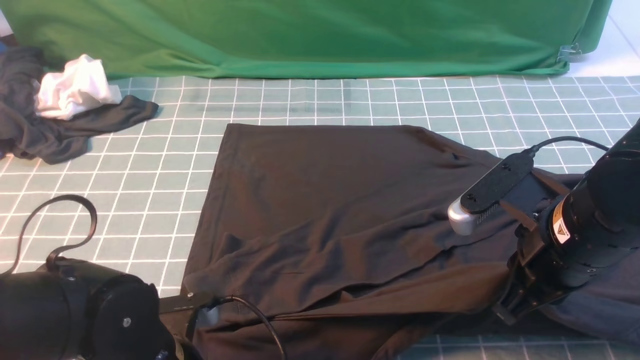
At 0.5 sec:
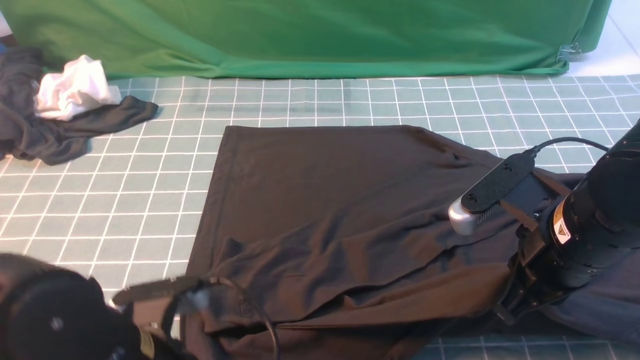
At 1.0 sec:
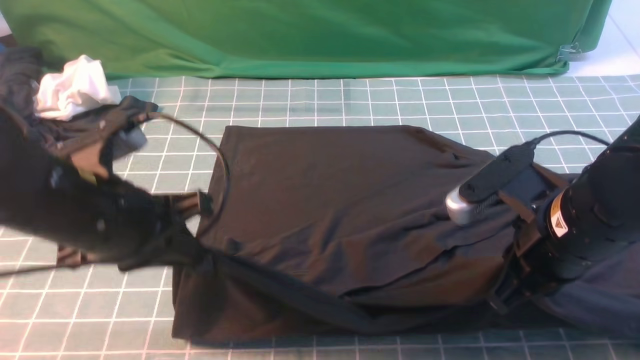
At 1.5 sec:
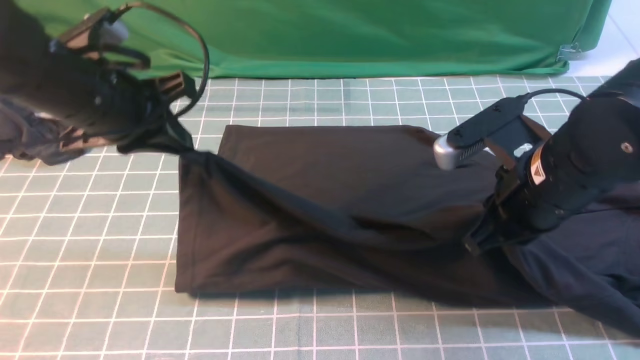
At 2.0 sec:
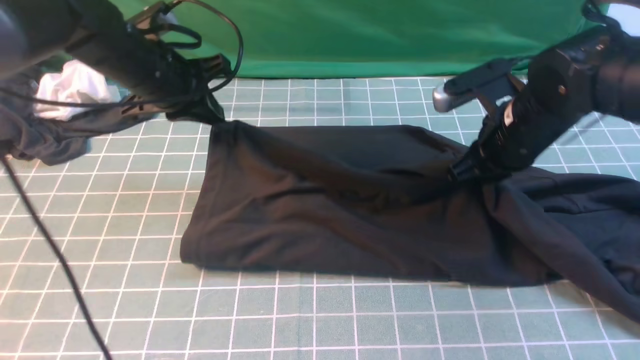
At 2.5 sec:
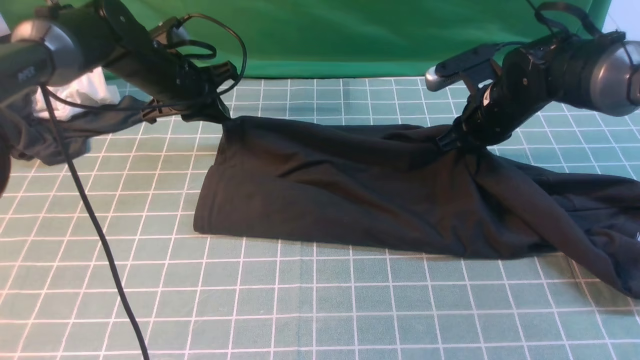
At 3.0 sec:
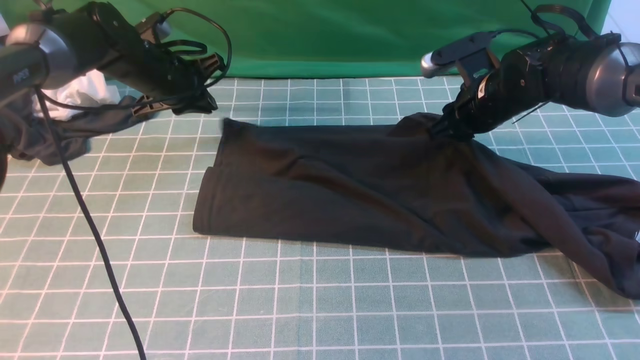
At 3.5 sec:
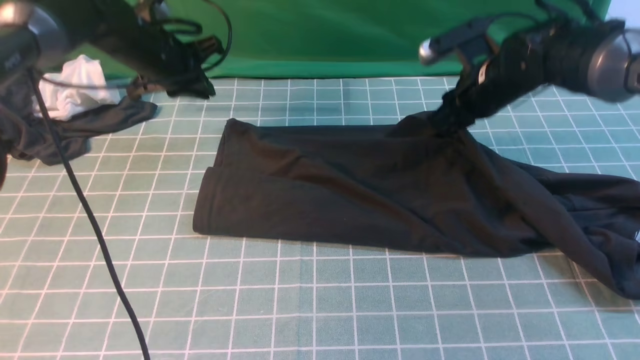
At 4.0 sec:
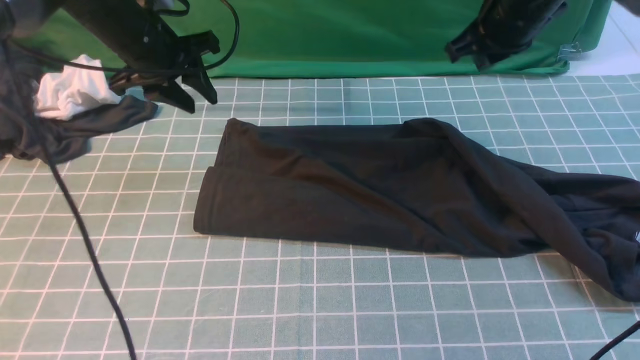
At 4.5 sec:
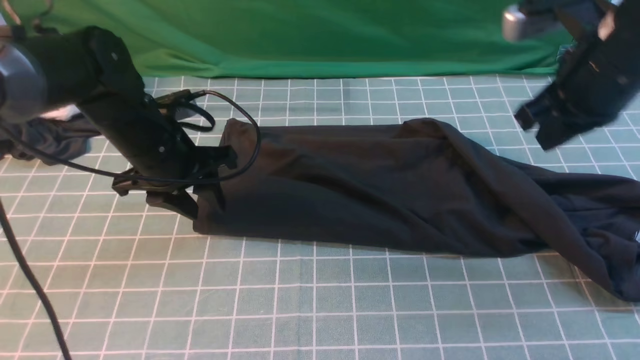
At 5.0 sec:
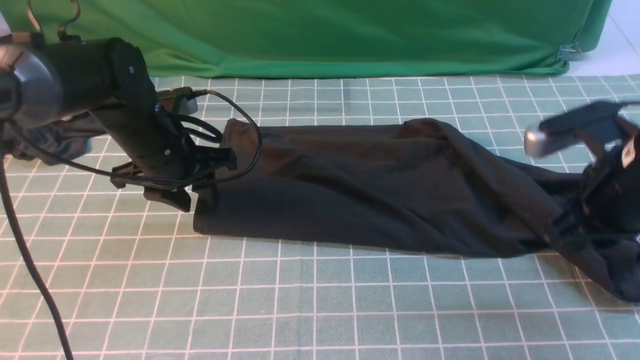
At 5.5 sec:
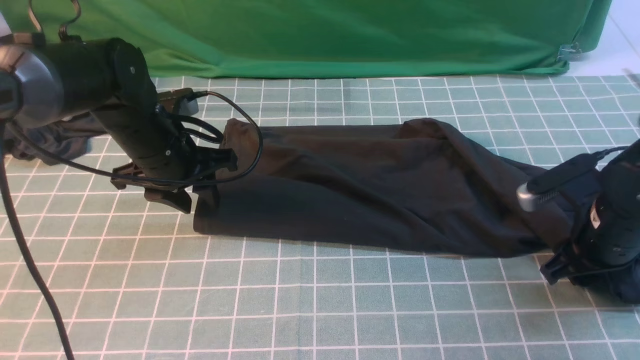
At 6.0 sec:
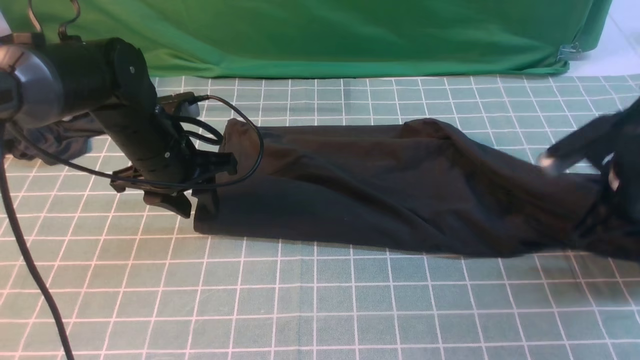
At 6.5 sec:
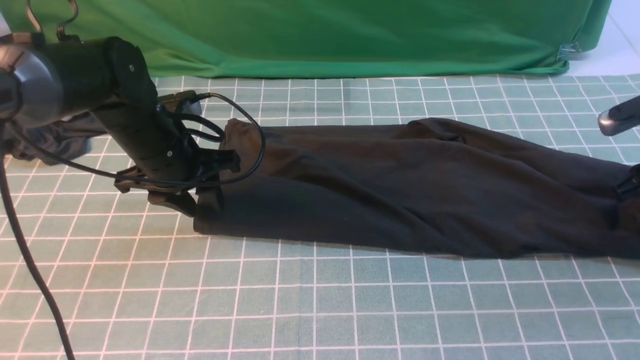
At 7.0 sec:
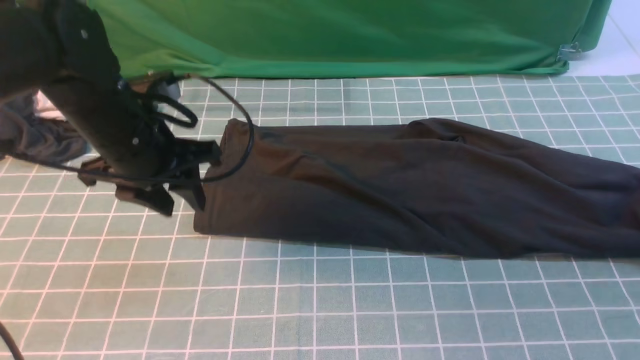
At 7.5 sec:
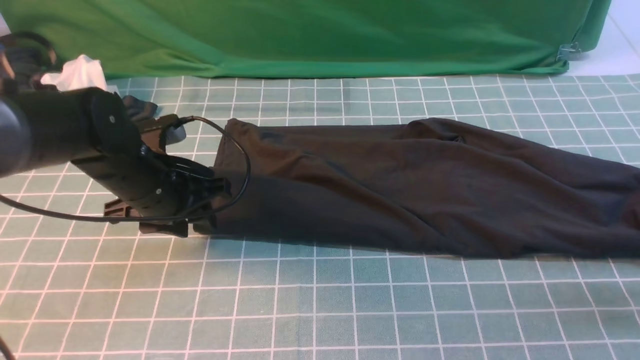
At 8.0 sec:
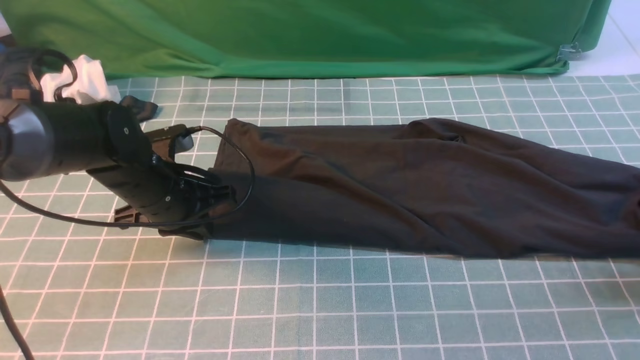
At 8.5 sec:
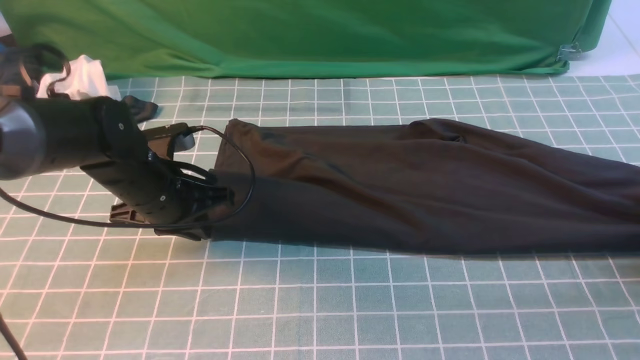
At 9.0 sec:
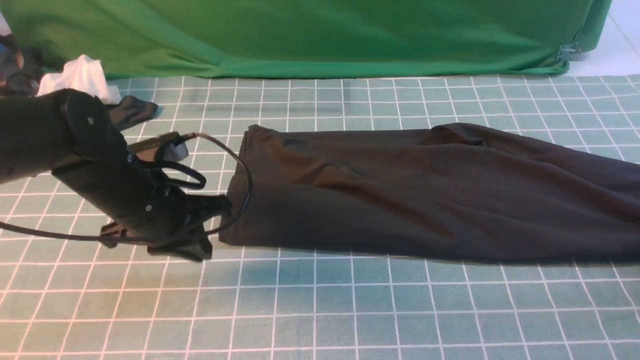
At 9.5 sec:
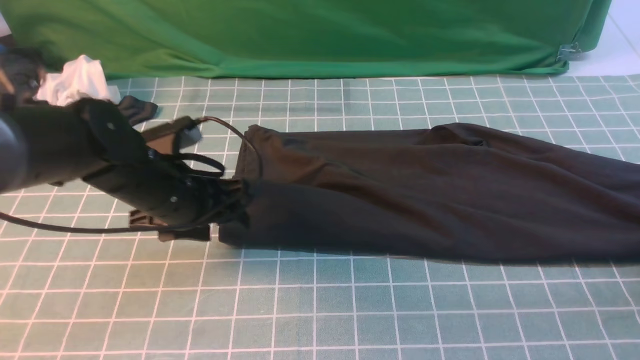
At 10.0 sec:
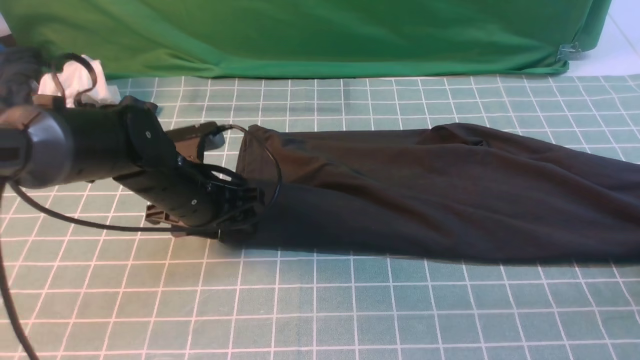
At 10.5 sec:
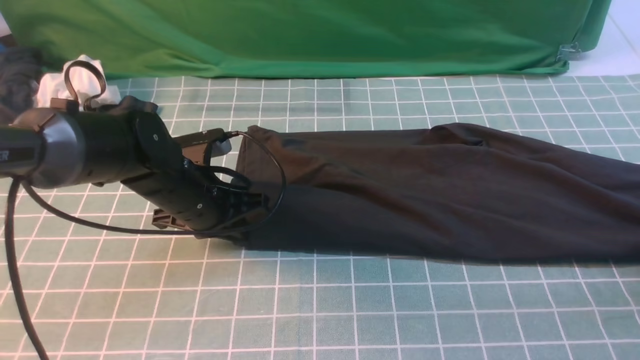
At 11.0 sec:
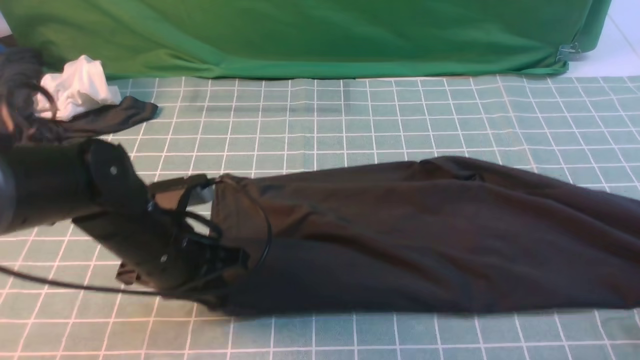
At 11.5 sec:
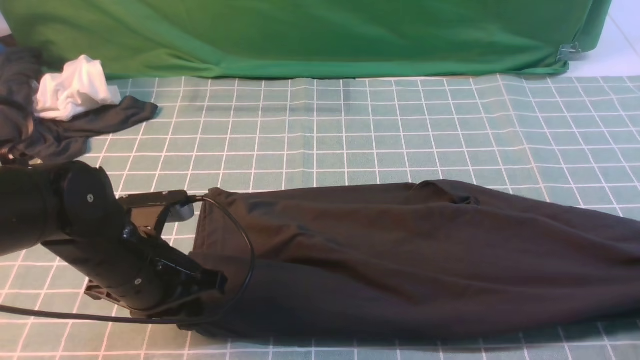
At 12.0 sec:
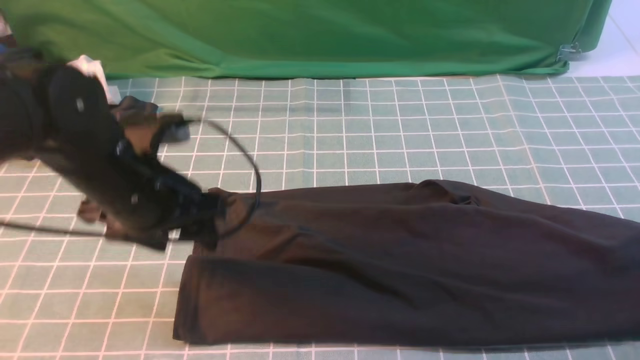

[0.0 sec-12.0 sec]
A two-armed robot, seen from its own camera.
Step, 0.0 sec to 3.5 sec: use both arms to drag the lower edge of the fabric forward and fold it over the upper edge.
0.0 sec to 2.0 sec: The right gripper shifts some 15 cm forward; the left gripper moves forward, some 30 cm.
2.0 sec to 4.0 sec: The left gripper opens its fingers. The right gripper travels upward and forward by approximately 10 cm.
4.0 sec to 6.0 sec: The left gripper goes roughly 10 cm backward and downward, while the right gripper travels backward, downward and to the right by approximately 20 cm, and opens, then closes once more.
6.0 sec to 8.0 sec: The right gripper is displaced to the right by approximately 10 cm, goes upward and returns, about 10 cm each way, and opens up, while the left gripper closes.
8.0 sec to 10.0 sec: The left gripper opens up; the right gripper heads to the right, covering some 5 cm, and closes, then opens again.
10.0 sec to 12.0 sec: The left gripper goes about 10 cm upward and backward, and closes, then opens again; the right gripper moves backward, roughly 5 cm, and opens up.

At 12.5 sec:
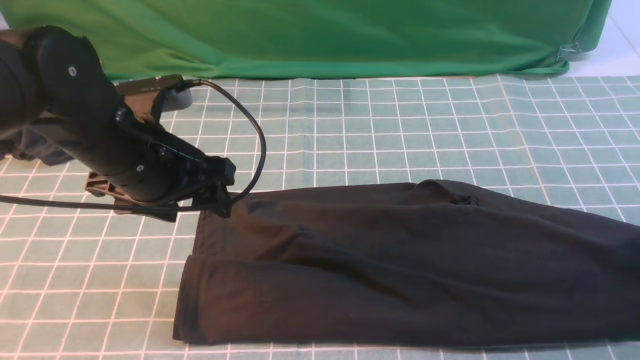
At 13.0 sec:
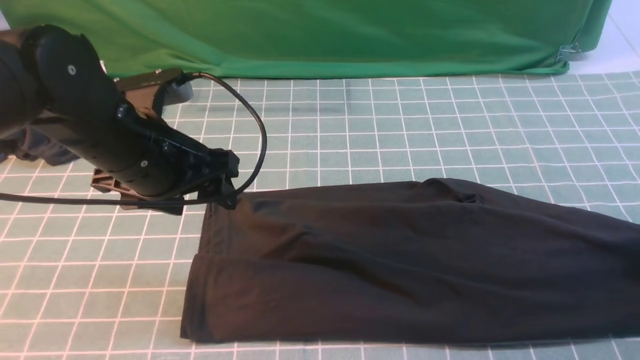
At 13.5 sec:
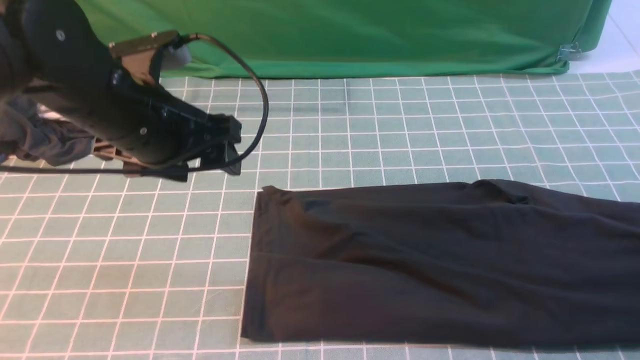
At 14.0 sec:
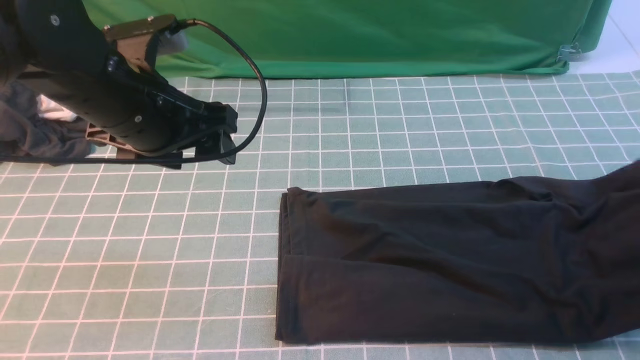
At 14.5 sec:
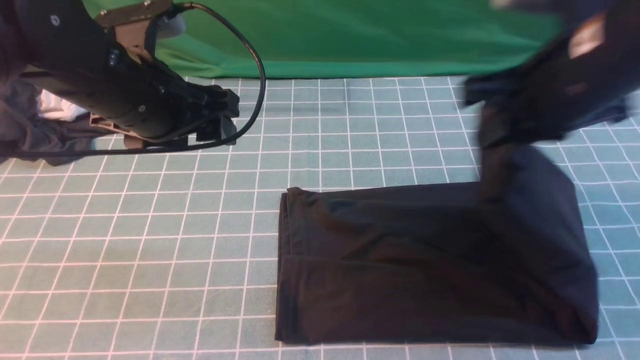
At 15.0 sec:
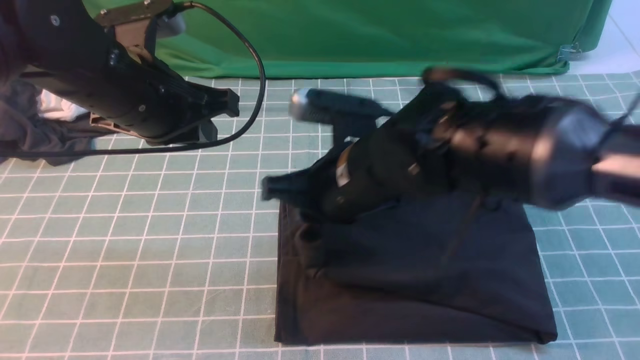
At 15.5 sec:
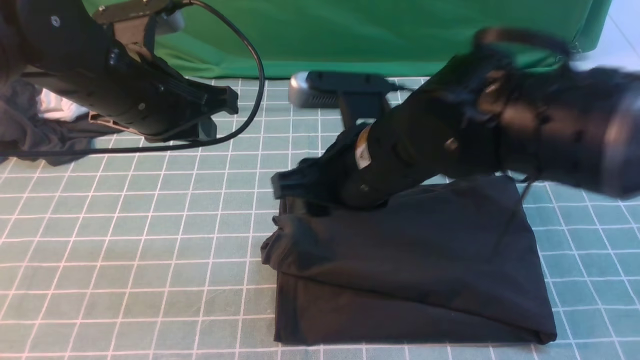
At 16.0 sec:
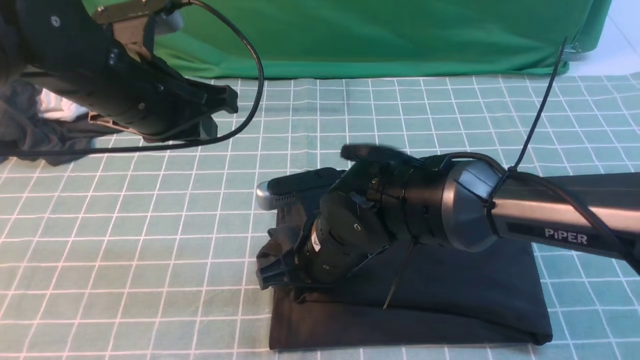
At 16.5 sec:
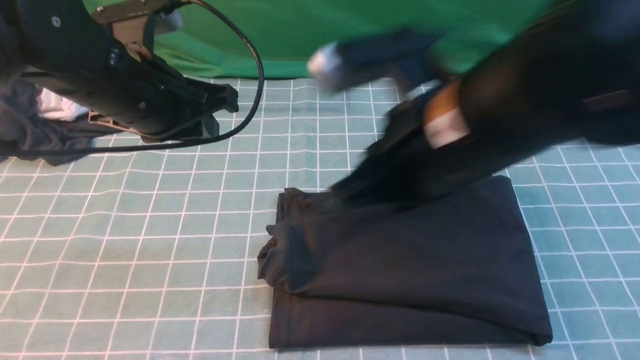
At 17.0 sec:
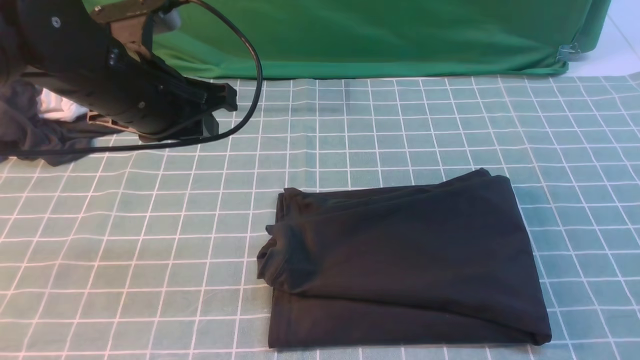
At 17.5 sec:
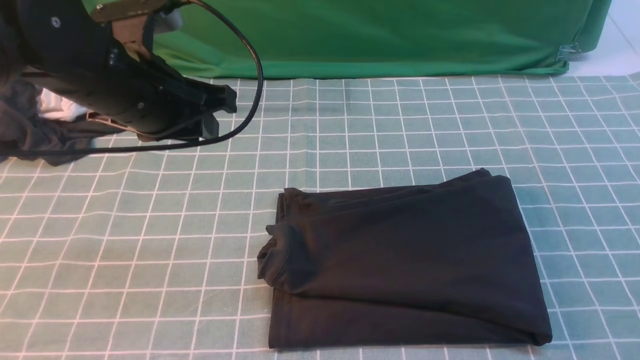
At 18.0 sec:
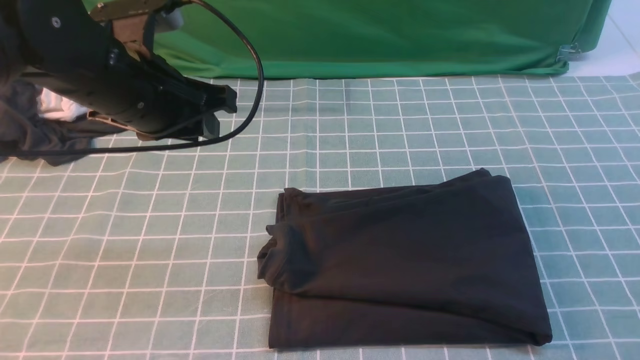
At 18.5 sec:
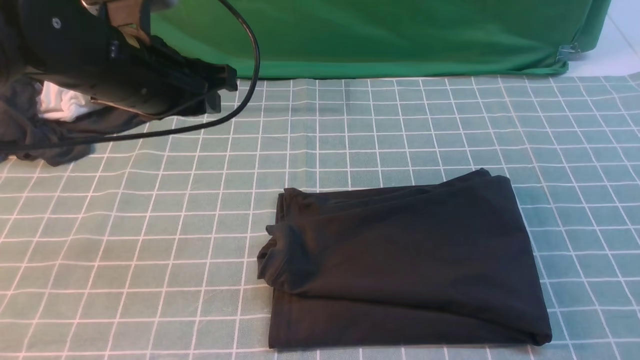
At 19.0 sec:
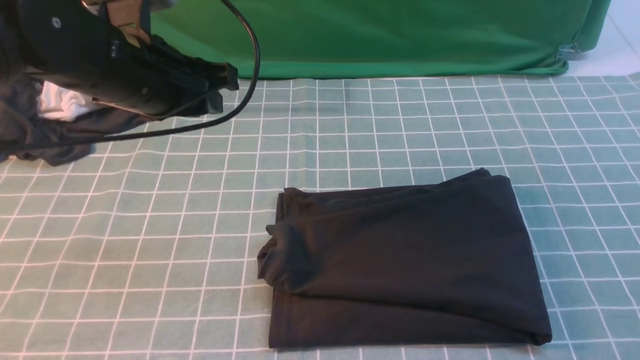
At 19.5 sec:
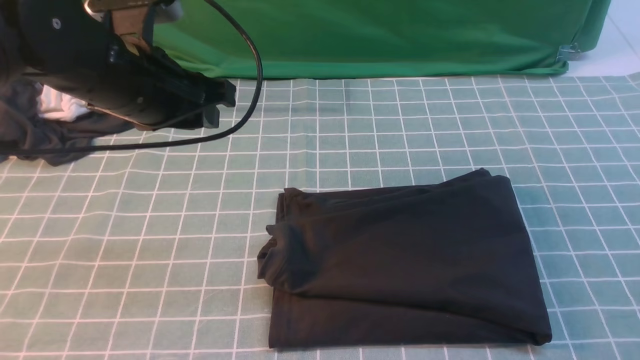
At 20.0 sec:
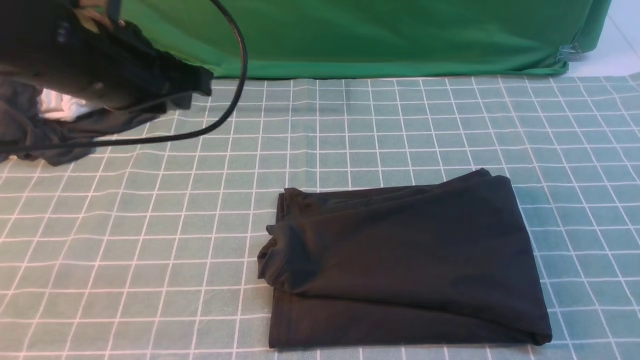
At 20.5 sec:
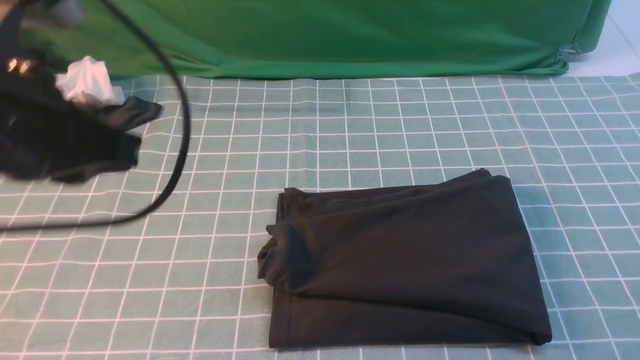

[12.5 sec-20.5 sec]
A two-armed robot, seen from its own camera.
Step, 12.5 sec to 16.0 sec: use the right arm to drag the right edge of the fabric to the left and folds it over the left edge.
12.5 sec to 14.5 sec: The right gripper is displaced to the left and upward by approximately 35 cm, and closes.
14.5 sec to 16.5 sec: The right gripper heads backward and to the left, covering approximately 10 cm, moves roughly 15 cm downward and comes back, and opens, then closes once more; the left gripper closes its fingers.
16.5 sec to 18.5 sec: The right gripper travels to the right and backward by about 25 cm.
18.5 sec to 20.5 sec: The left gripper goes roughly 15 cm backward; the right gripper heads downward, covering about 10 cm.
